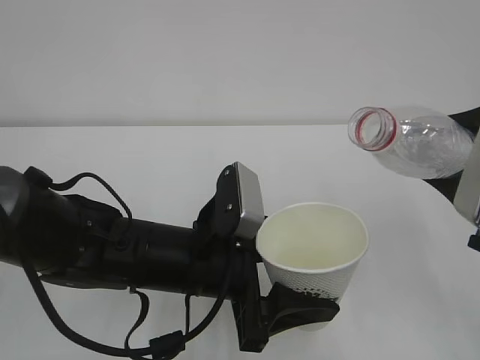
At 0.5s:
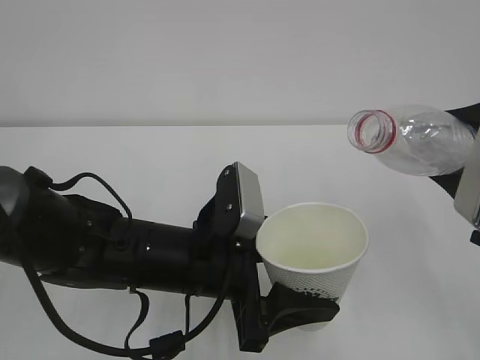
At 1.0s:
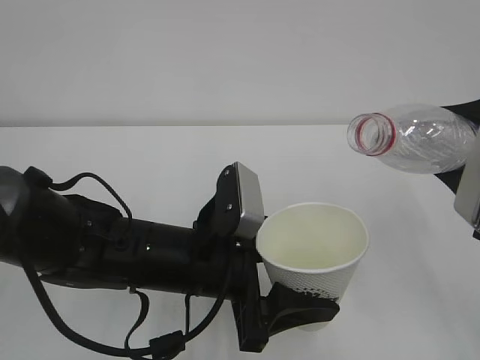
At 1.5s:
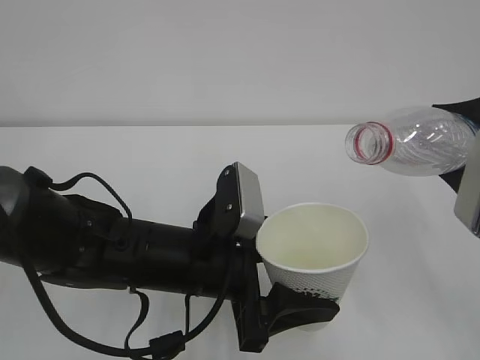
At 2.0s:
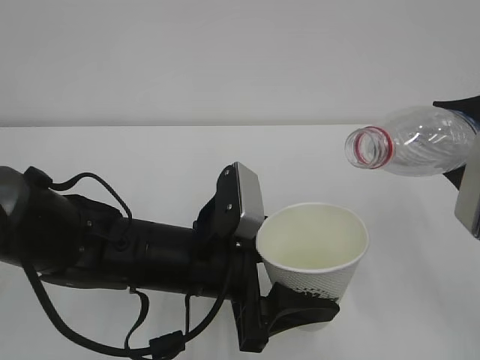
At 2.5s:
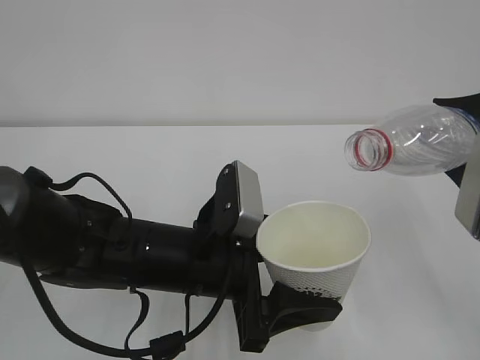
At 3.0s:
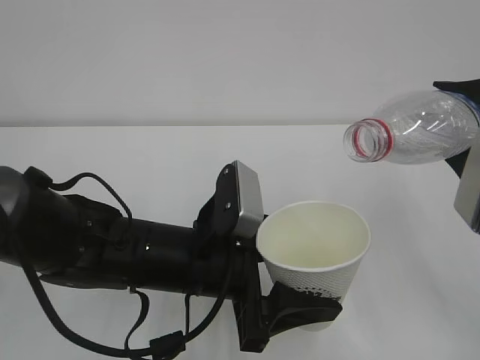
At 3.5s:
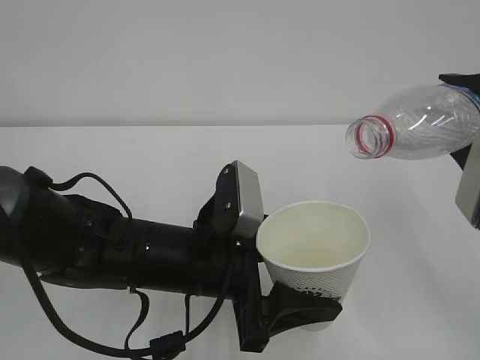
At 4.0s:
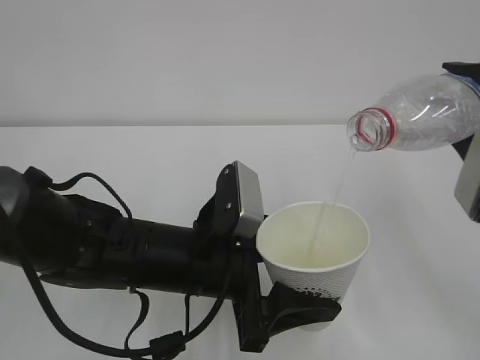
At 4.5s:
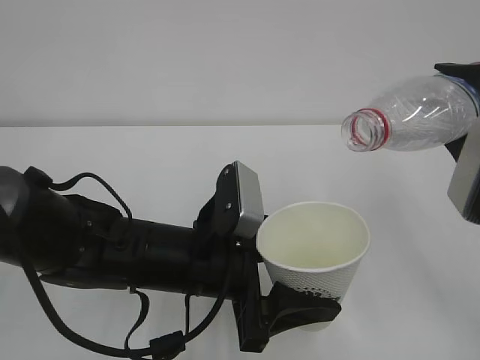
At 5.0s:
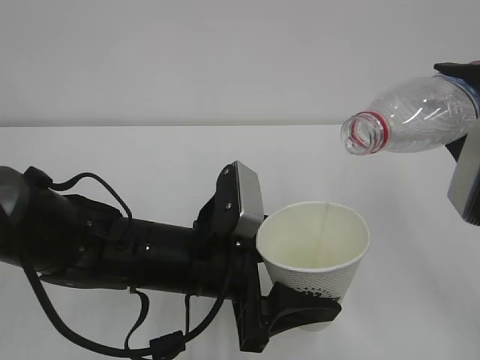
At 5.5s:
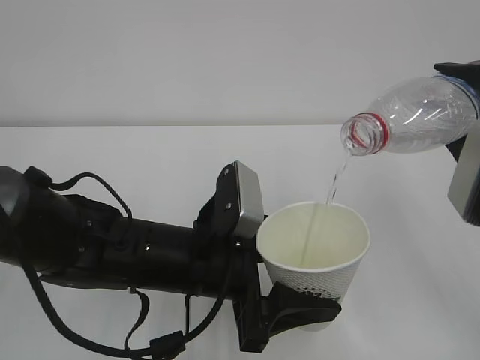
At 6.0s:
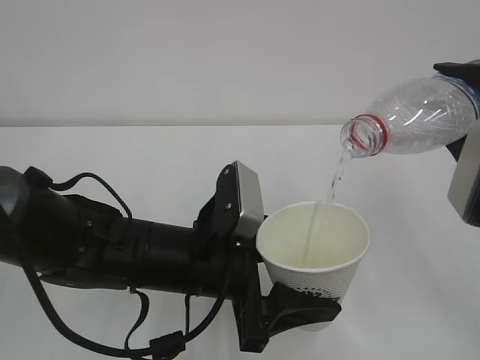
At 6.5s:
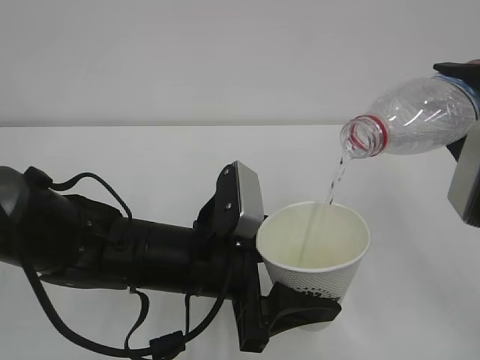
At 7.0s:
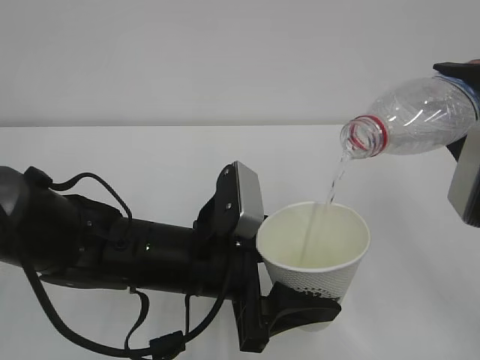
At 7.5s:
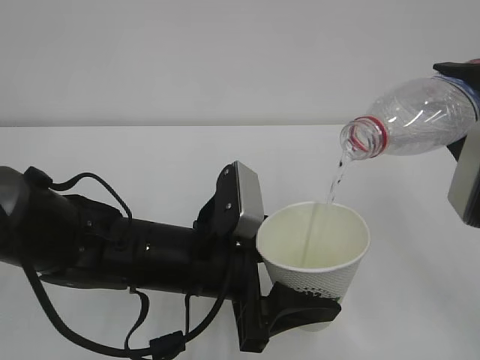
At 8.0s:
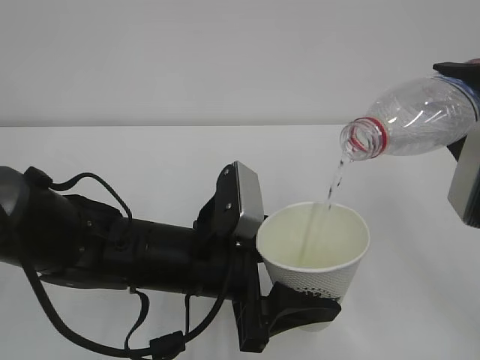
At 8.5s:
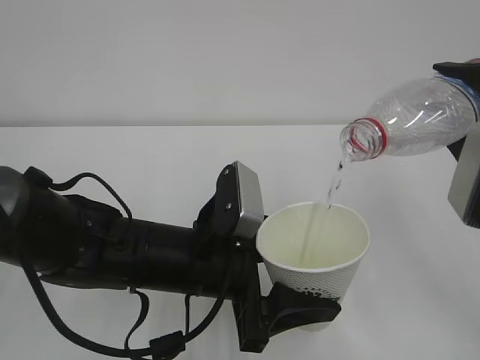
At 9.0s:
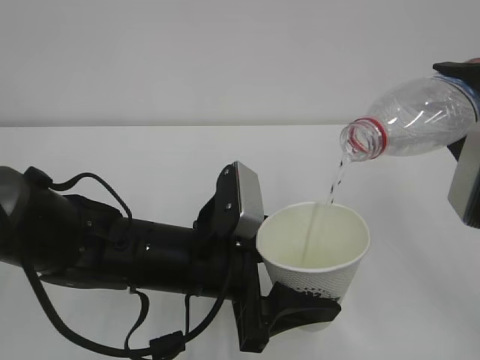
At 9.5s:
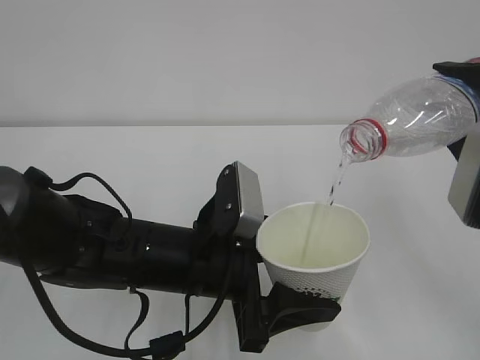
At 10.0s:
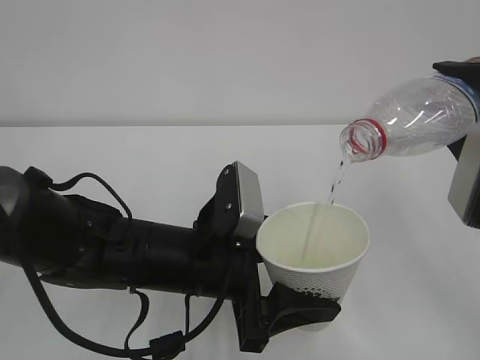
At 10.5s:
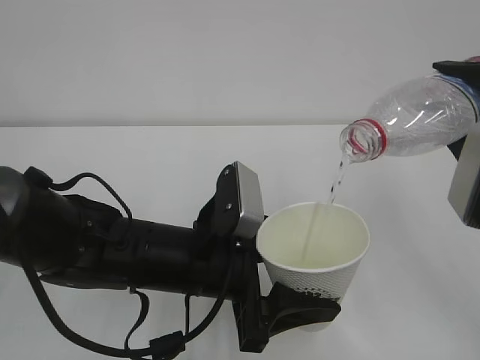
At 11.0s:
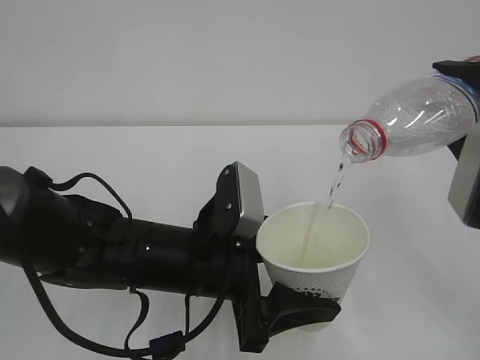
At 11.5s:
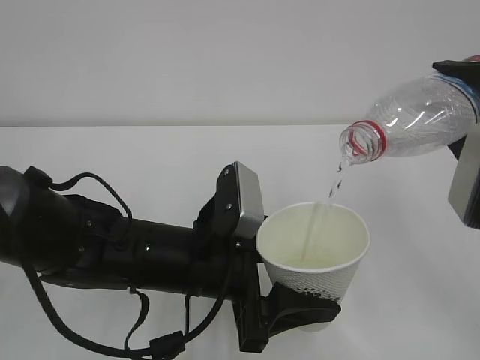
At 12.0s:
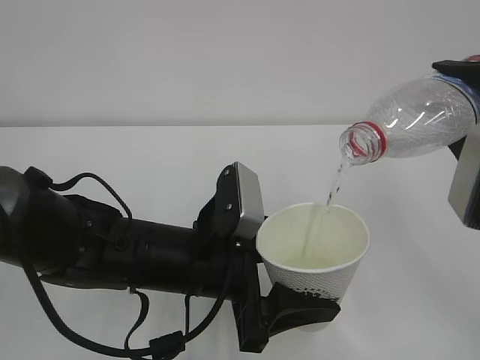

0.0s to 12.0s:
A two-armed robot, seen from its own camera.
0.0s to 2.0s: The grippers make only small movements.
2.0s to 4.0s: The grippers stay close to where they were, moving slightly.
4.0s to 10.0s: Neither gripper changes place.
10.0s to 12.0s: The two grippers keep their place.

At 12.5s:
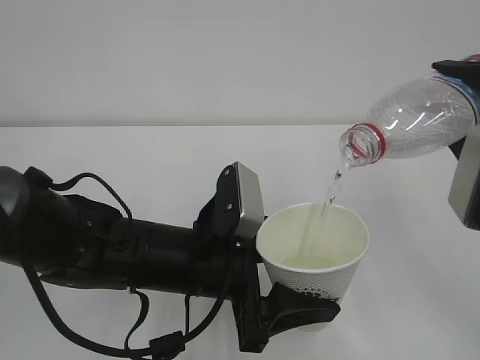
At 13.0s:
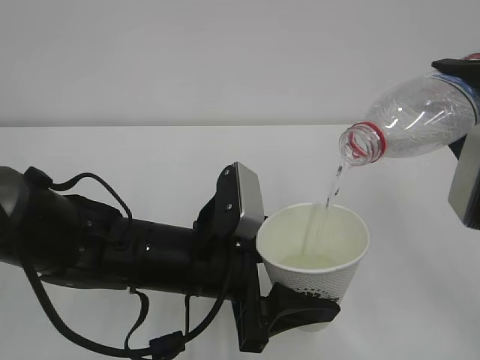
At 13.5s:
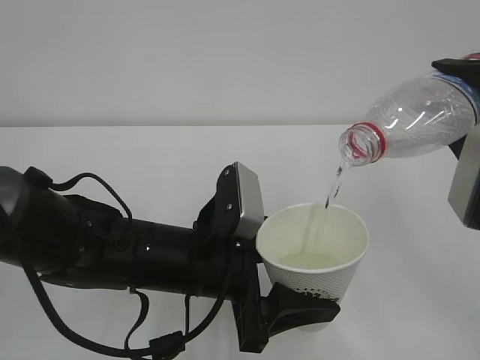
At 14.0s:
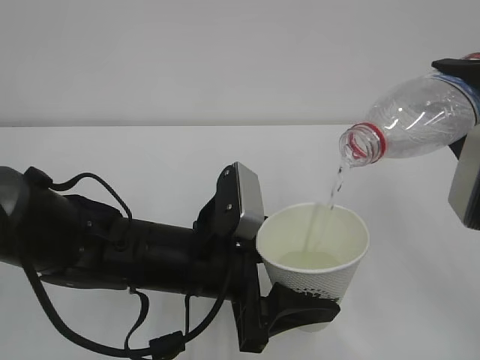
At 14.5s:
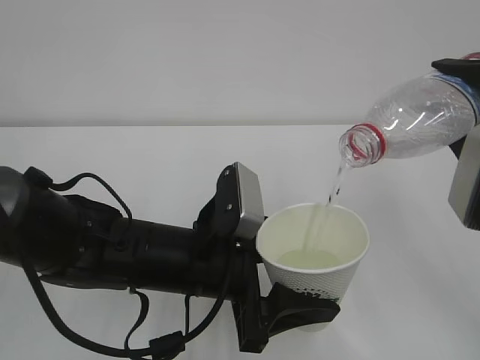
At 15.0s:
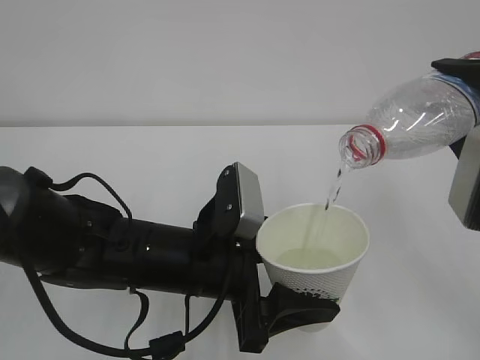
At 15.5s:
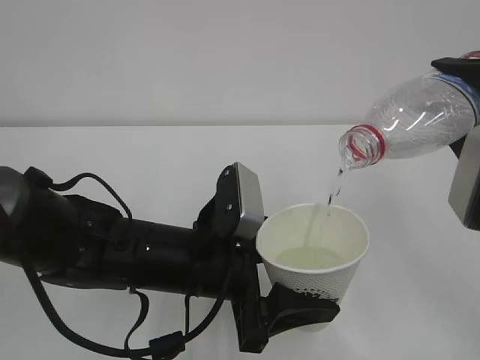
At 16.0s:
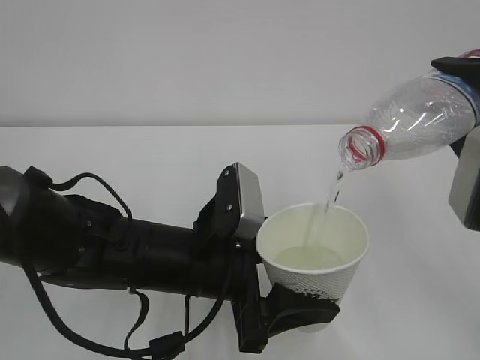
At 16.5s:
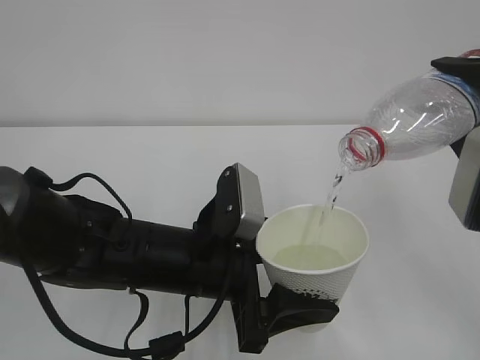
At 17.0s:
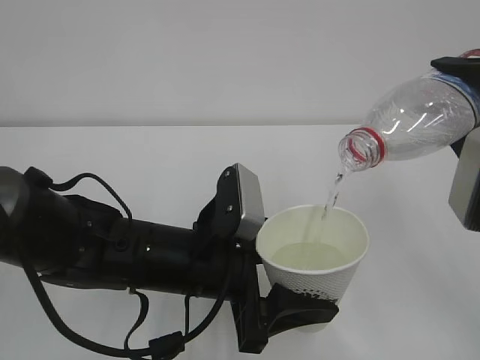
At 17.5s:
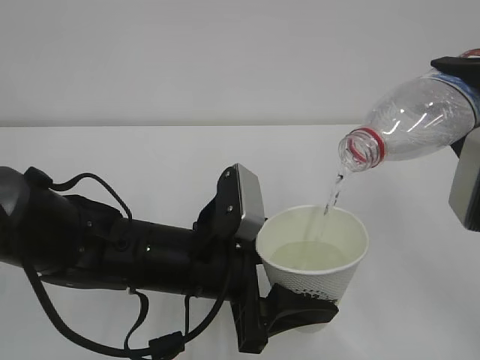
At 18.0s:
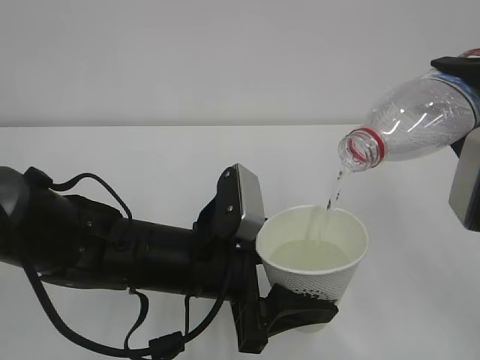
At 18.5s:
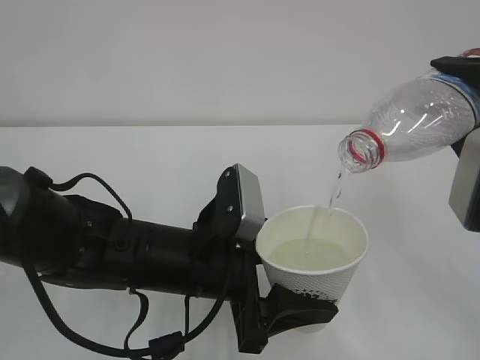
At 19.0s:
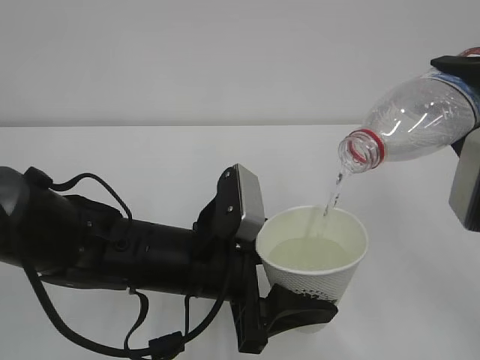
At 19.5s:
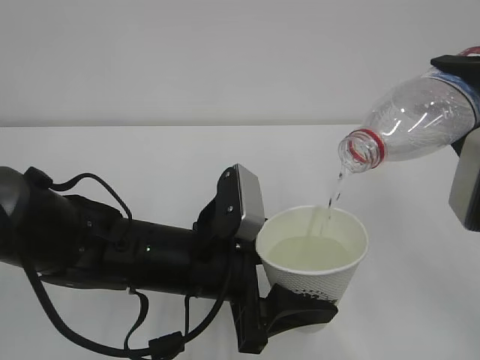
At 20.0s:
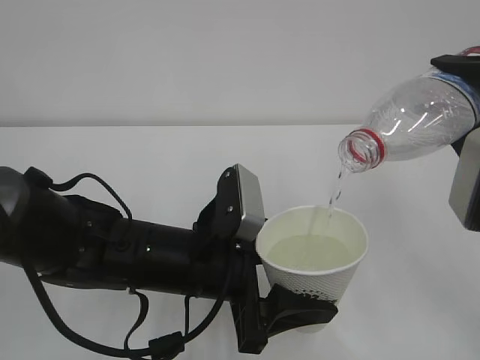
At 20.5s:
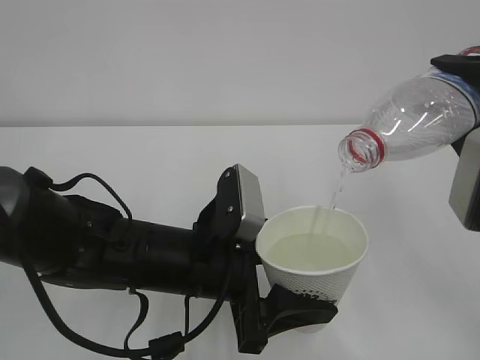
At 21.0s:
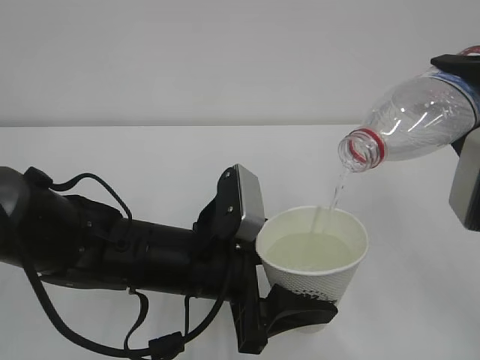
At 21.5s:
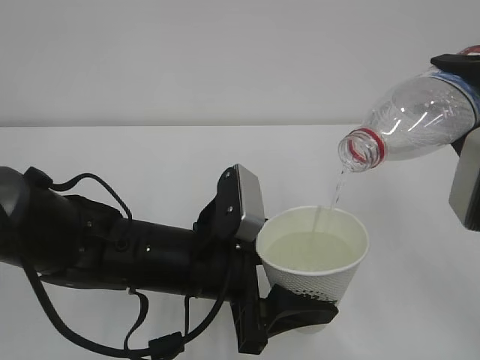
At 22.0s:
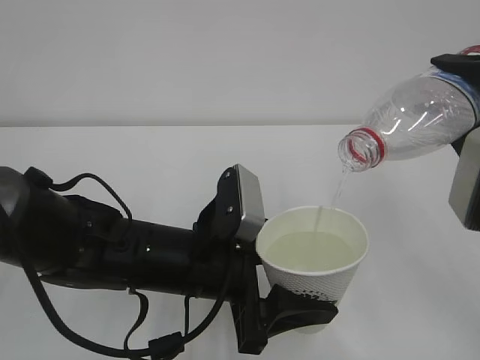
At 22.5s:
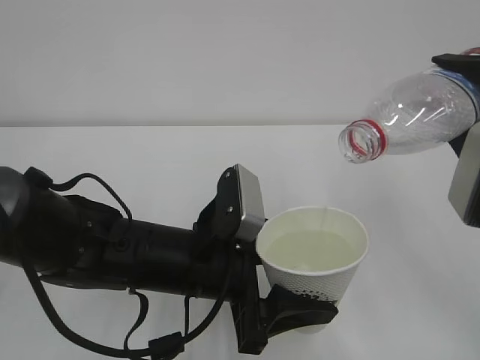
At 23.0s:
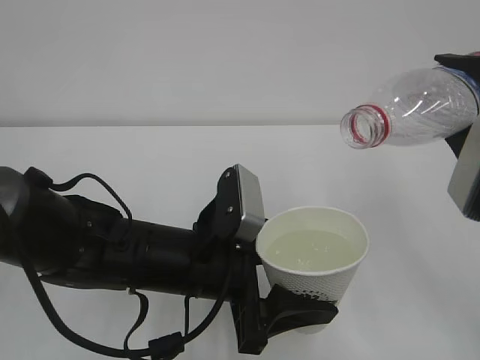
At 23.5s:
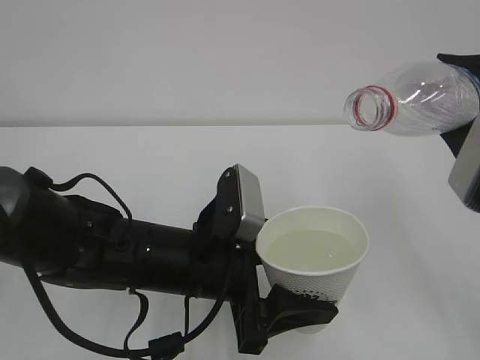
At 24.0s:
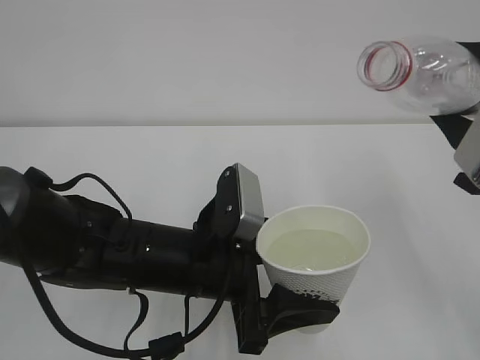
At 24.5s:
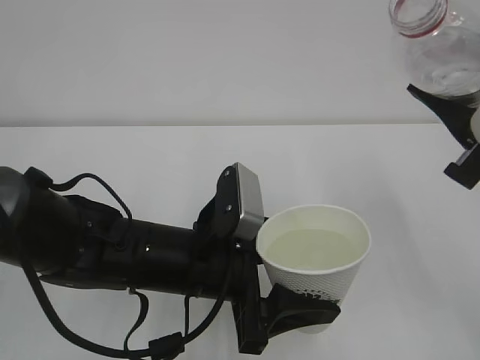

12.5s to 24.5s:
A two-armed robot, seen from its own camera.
12.5s to 22.5s: Both grippers stay about where they are.

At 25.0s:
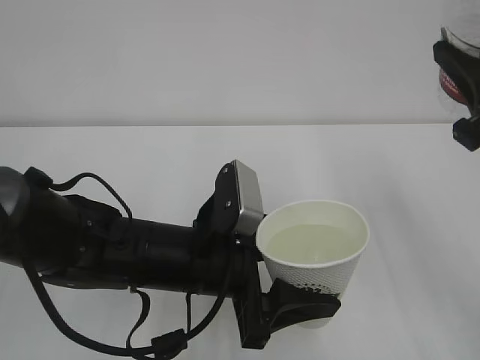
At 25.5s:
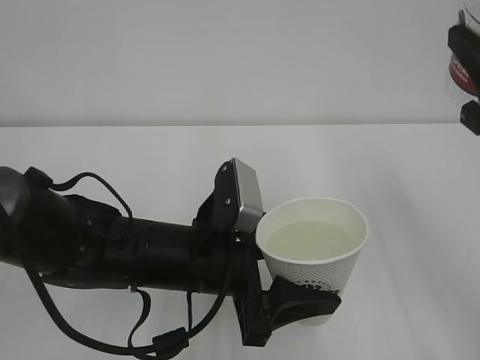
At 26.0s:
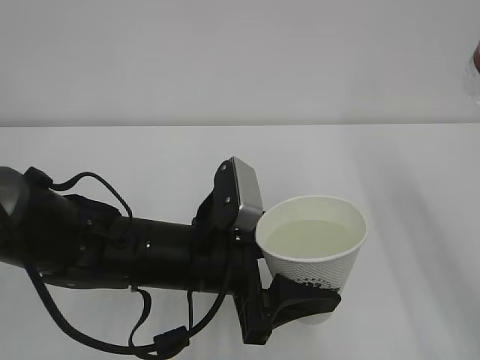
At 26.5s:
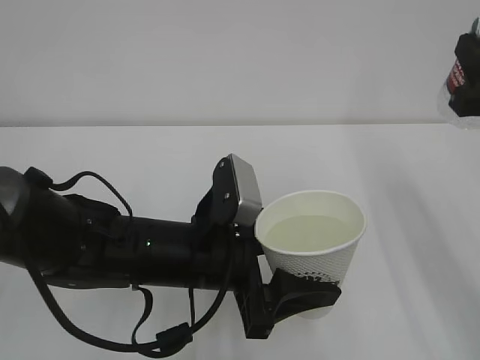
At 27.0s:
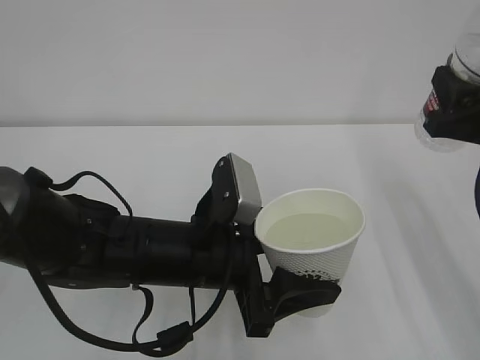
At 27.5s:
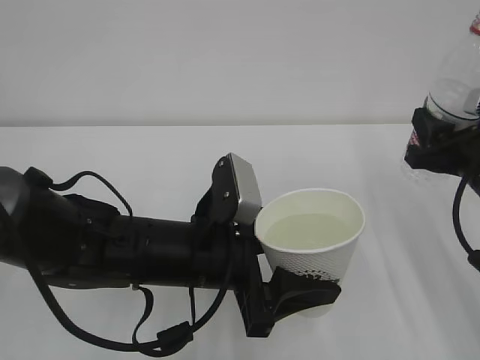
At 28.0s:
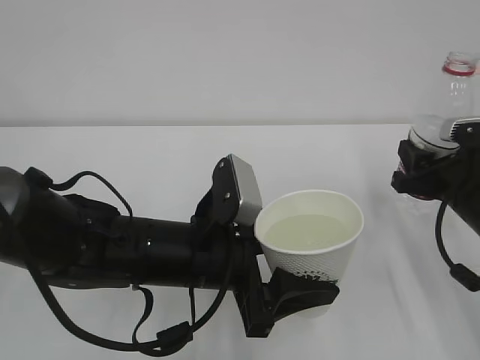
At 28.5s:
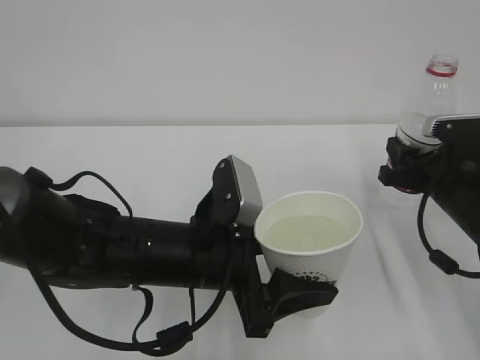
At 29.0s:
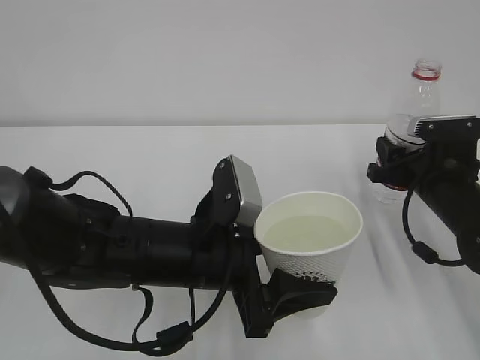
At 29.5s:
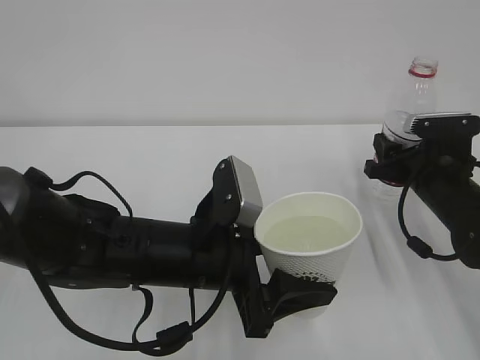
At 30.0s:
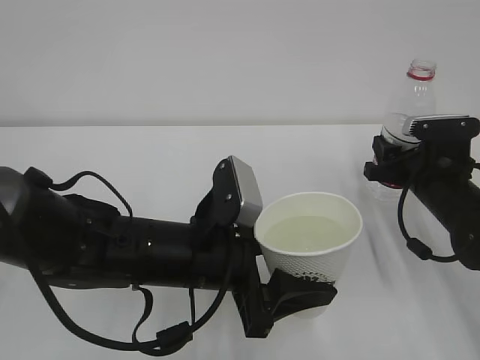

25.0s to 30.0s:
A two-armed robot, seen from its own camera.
25.0s to 27.5s: The right gripper heads downward and forward, covering about 15 cm.
27.5s to 30.0s: The right gripper travels downward and forward by roughly 10 cm.
